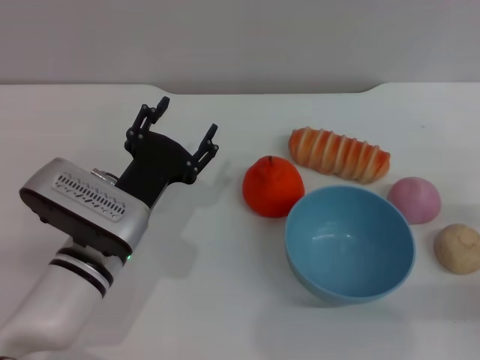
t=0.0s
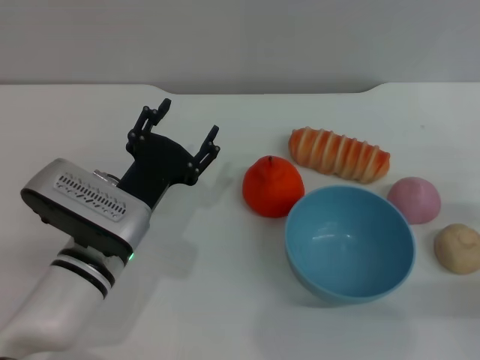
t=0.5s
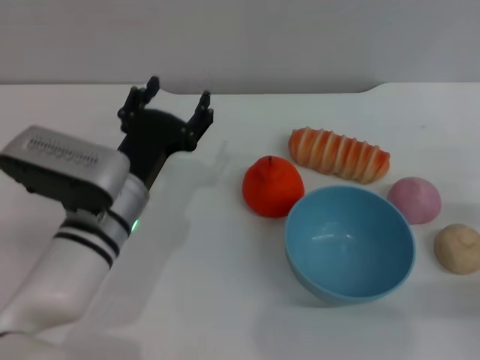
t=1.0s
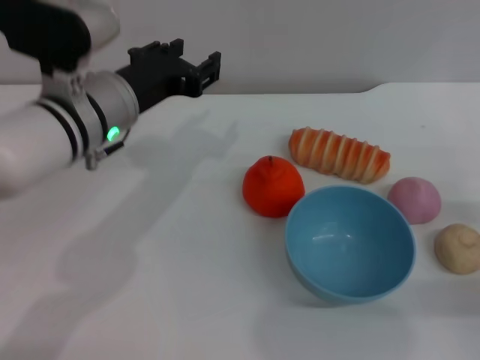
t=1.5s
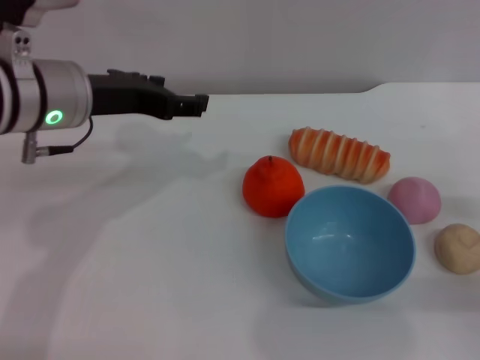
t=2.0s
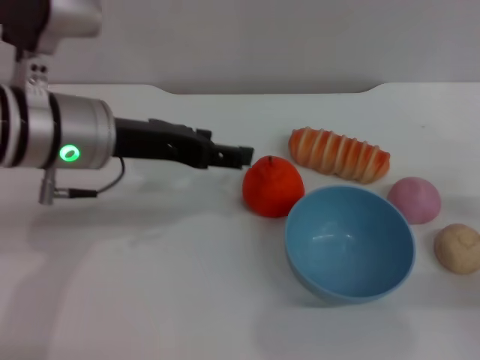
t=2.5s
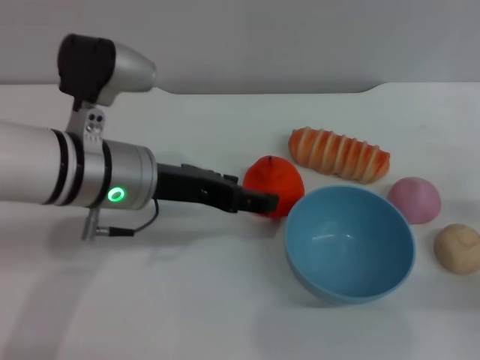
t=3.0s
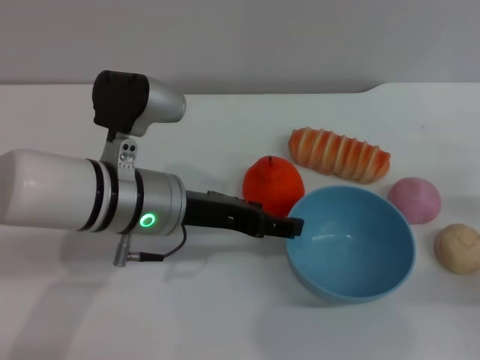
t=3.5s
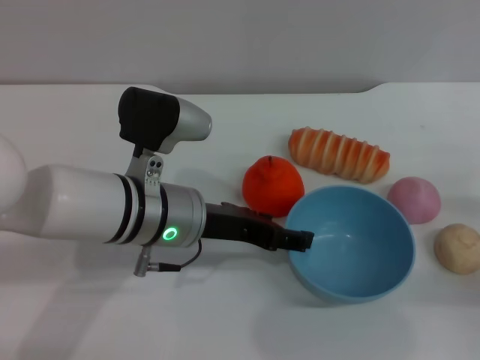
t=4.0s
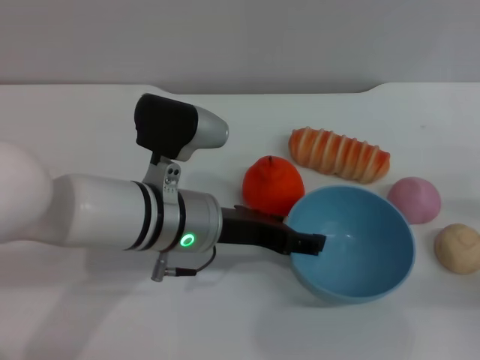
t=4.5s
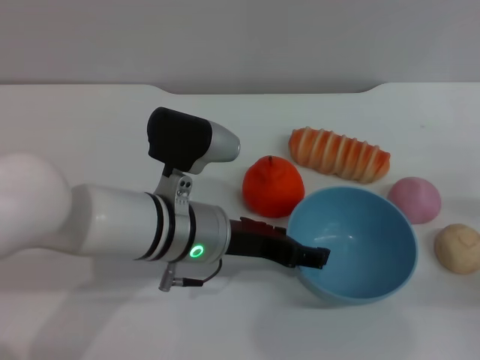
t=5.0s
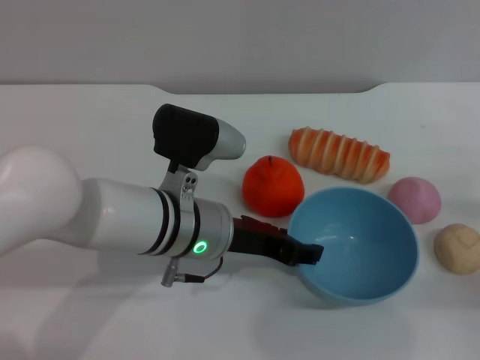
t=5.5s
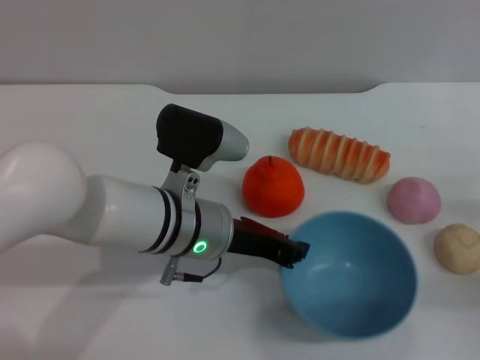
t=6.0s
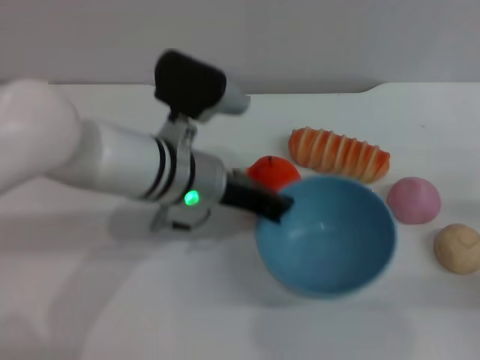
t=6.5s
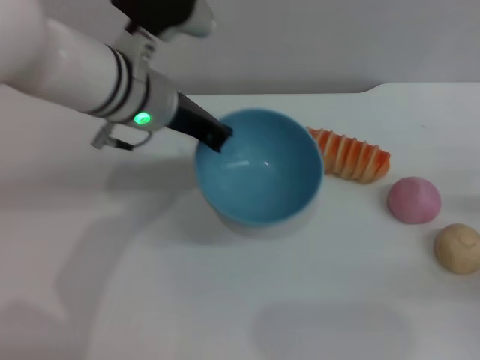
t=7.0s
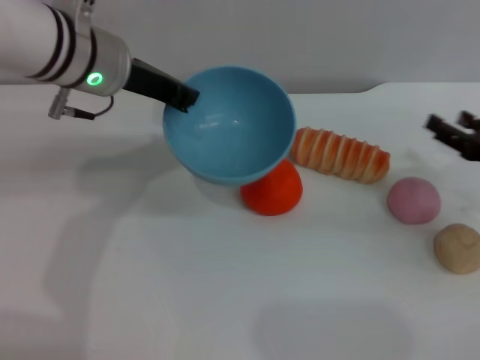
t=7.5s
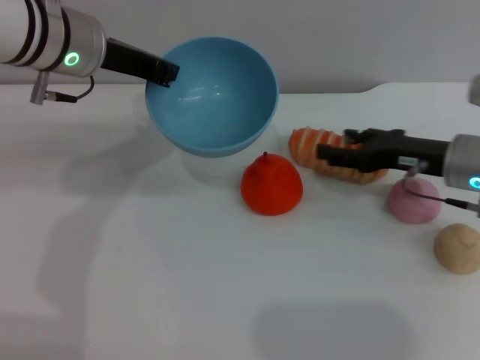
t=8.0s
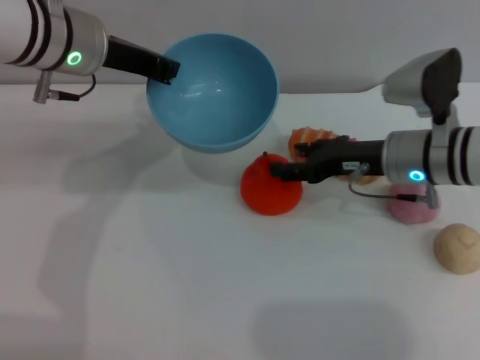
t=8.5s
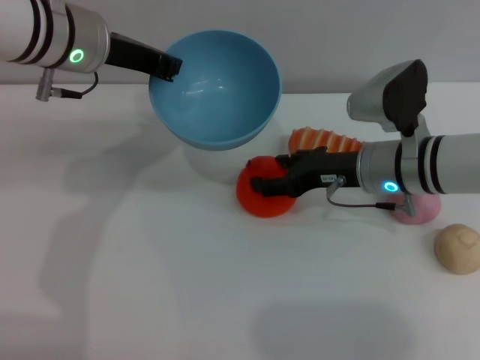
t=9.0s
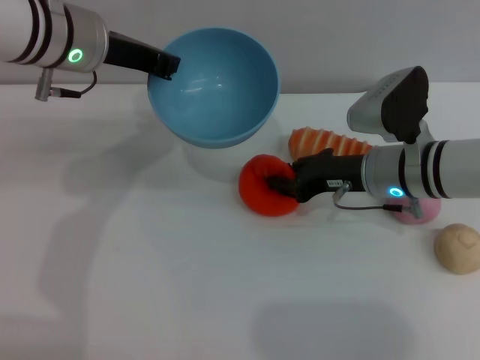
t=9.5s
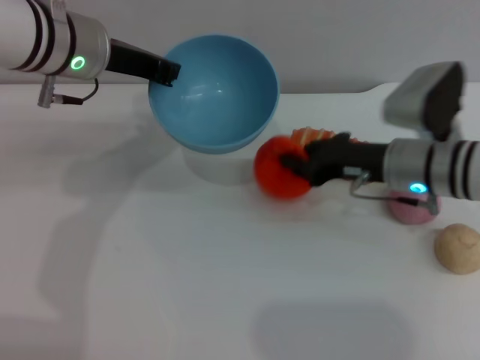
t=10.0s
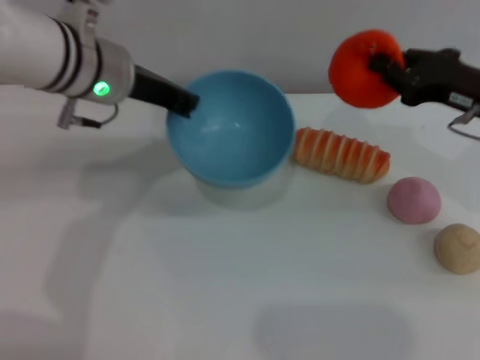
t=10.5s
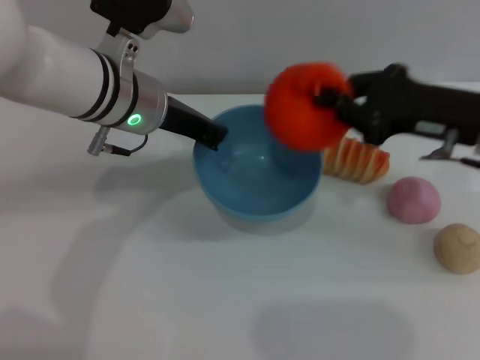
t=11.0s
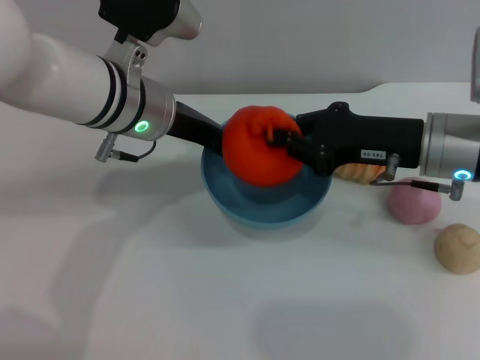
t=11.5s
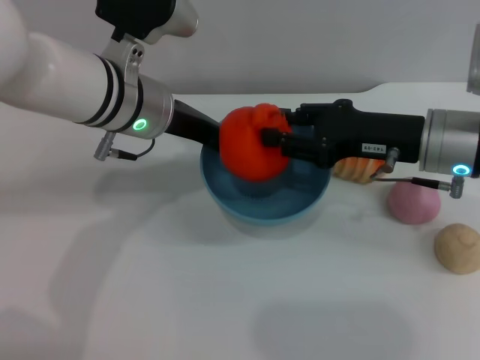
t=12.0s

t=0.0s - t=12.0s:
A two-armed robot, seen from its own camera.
Task of the whole recording: put the orange into the blue bowl and pour it out repeatedly.
Step, t=0.0s - t=6.5s: Pick up the bowl with the left gripper.
Step, t=7.0s - t=10.0s: Pick up the orange with the right gripper.
t=0.0s - t=2.0s: The left gripper heads upward and forward, covering about 15 cm.
t=2.0s - t=4.0s: The left gripper travels downward and to the right by roughly 10 cm.
t=4.0s - t=6.0s: The left gripper closes.
t=6.0s - t=8.0s: The right gripper shifts approximately 15 cm forward, to the left and upward, while the left gripper shifts roughly 20 cm upward, forward and to the left, and closes.
t=8.0s - t=10.0s: The right gripper travels to the left by roughly 5 cm, and closes.
t=10.0s - t=12.0s: The right gripper moves upward, approximately 5 cm, and travels to the right and back again, approximately 10 cm each way. The left gripper heads to the right, covering some 5 cm.

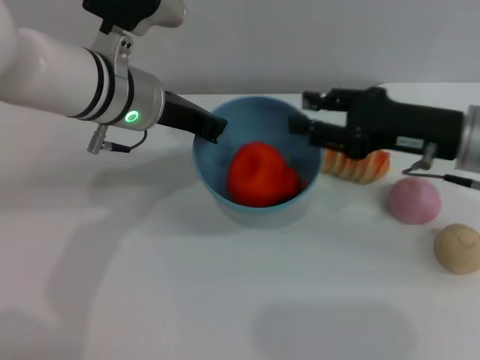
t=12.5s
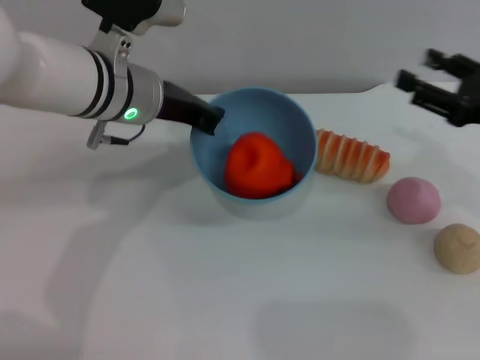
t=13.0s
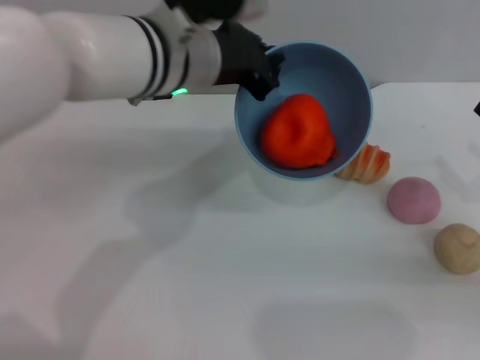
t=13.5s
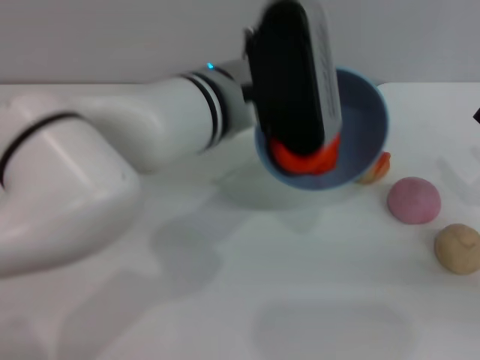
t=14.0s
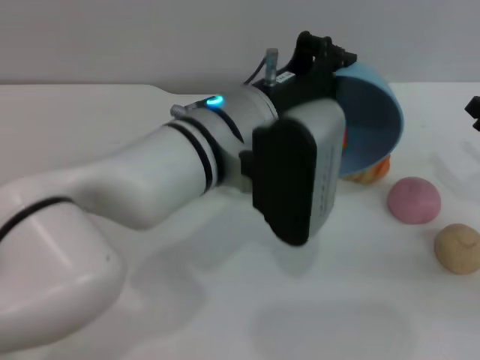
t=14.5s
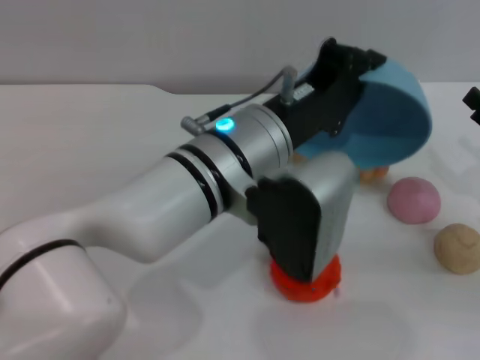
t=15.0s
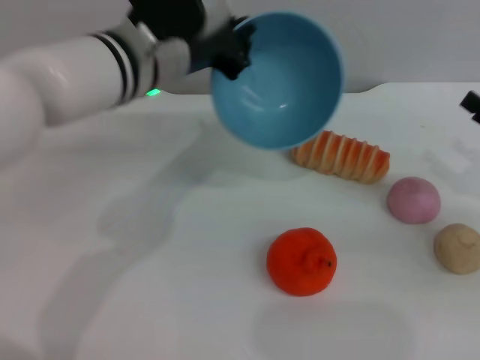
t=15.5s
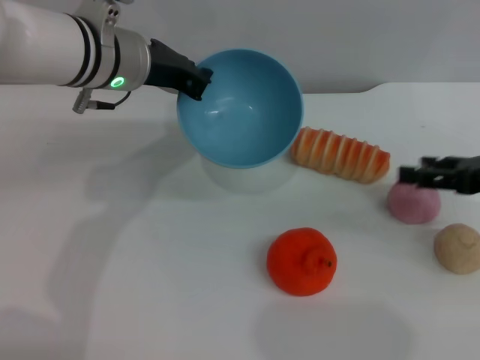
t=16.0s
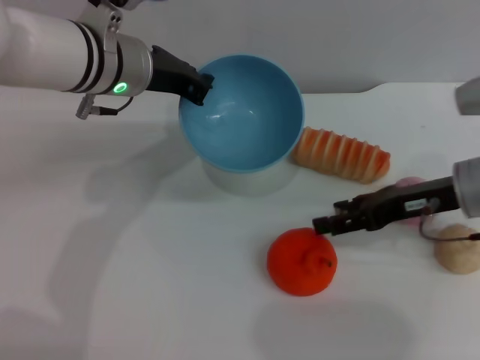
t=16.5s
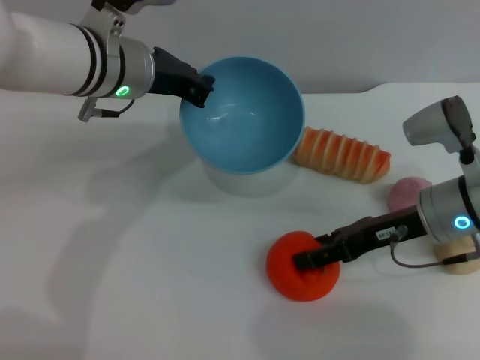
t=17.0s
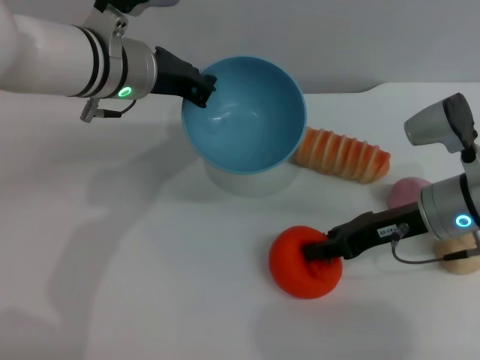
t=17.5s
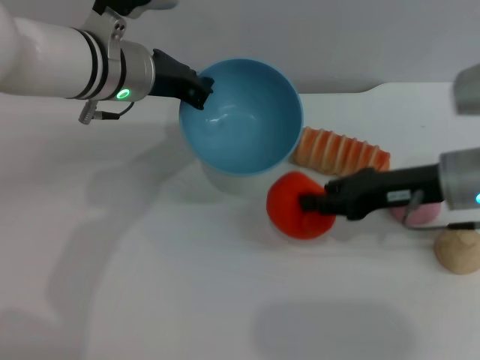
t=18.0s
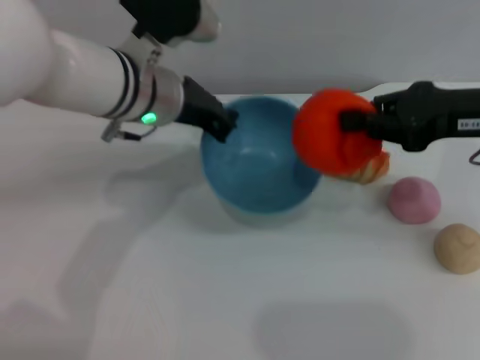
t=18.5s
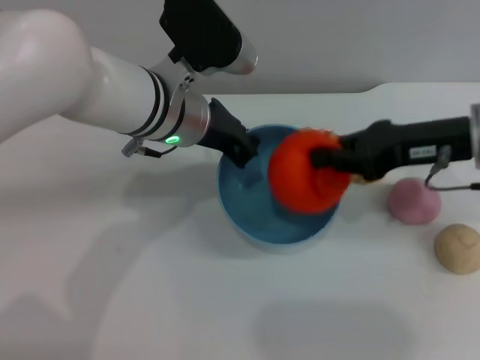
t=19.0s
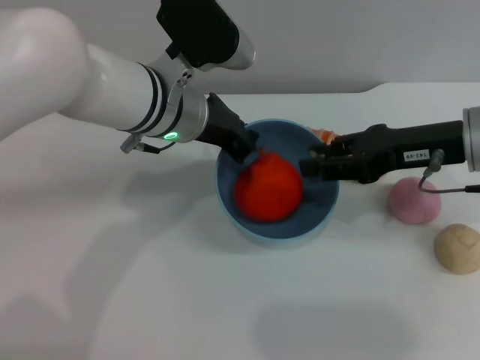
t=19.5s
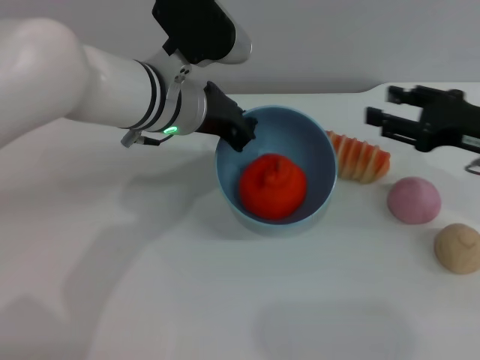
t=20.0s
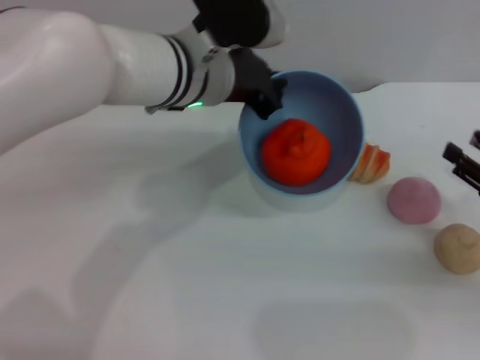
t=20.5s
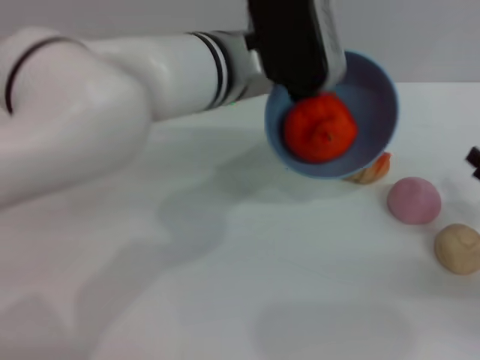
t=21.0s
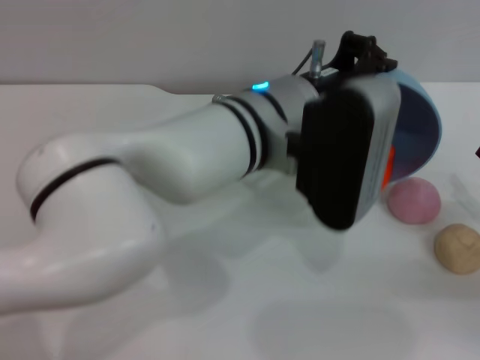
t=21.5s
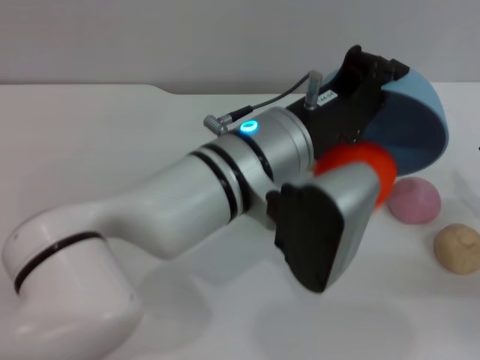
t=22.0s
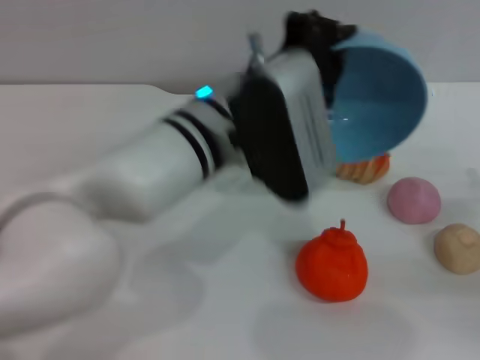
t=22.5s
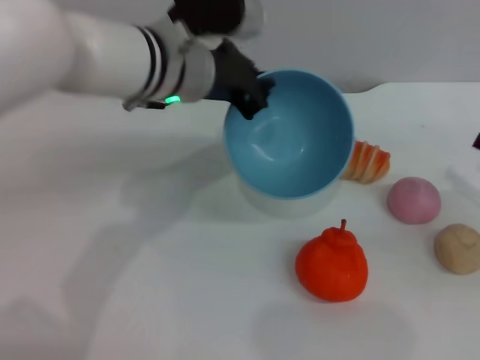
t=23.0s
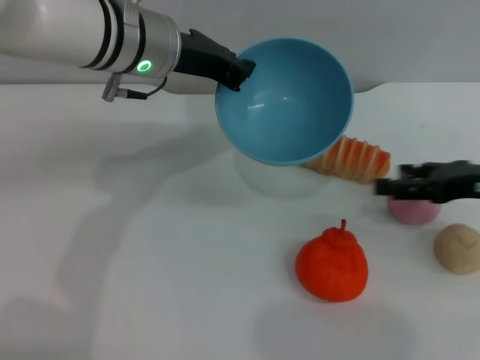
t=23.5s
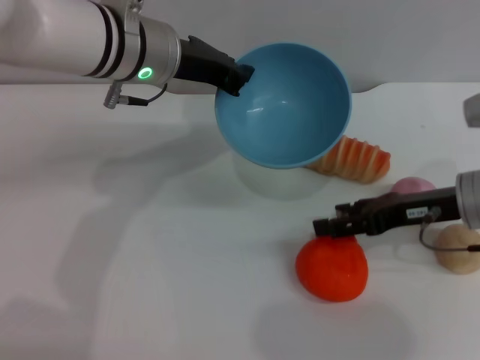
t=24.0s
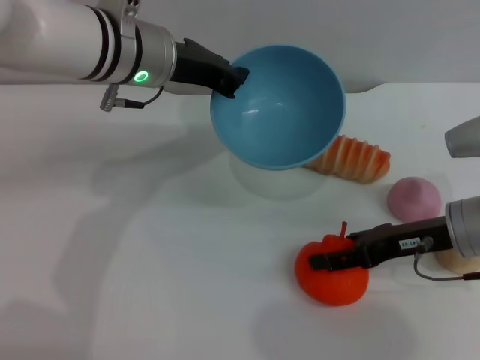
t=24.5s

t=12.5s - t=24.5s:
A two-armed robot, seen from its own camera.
Task of the whole recording: put the orange into the blue bowl and pour it out repeatedly.
Step, t=12.5s - t=15.0s: Pour the orange out of the bowl.
Step, t=15.5s - t=18.0s: Pick up the orange with the right gripper.
Step, t=18.5s - t=19.5s: Place the orange into the bowl.
Step, t=20.0s - t=22.0s: Pour the orange out of the bowl.
t=12.5s - t=14.5s: The left gripper shifts some 10 cm to the right and backward; the right gripper travels to the right, downward and backward by some 15 cm, and opens.
t=14.5s - t=16.5s: The two grippers go about 15 cm to the left and forward.
t=16.5s - t=18.5s: The right gripper shifts about 10 cm upward, and closes its fingers.
t=18.5s - t=20.5s: The right gripper goes some 20 cm downward, to the right and backward, and opens.
t=20.5s - t=22.5s: The left gripper moves backward, about 10 cm.
t=22.5s - t=24.5s: The right gripper heads to the left and forward, covering some 15 cm. The left gripper shifts about 15 cm forward and to the left.

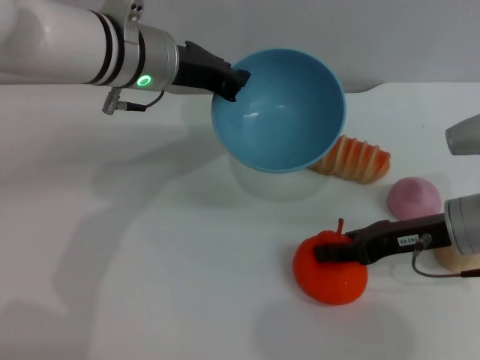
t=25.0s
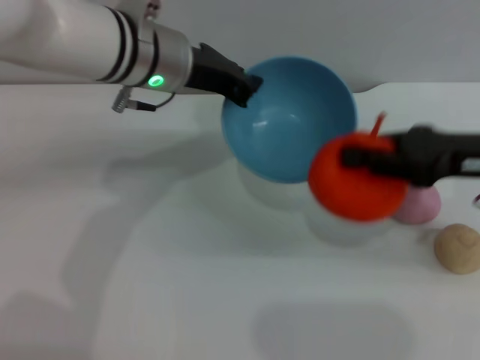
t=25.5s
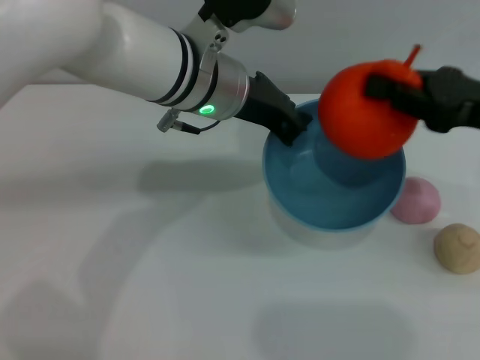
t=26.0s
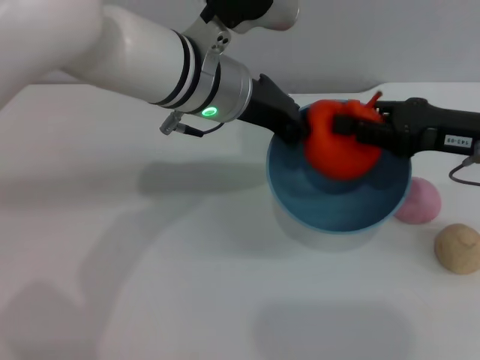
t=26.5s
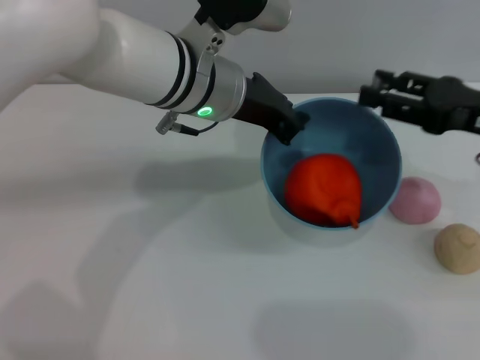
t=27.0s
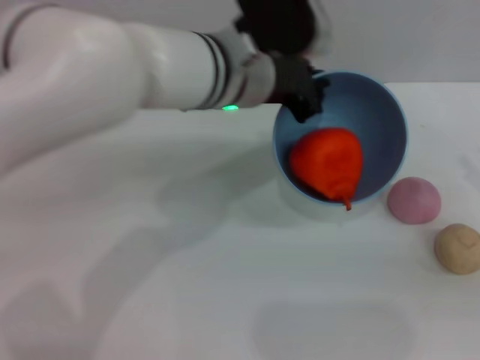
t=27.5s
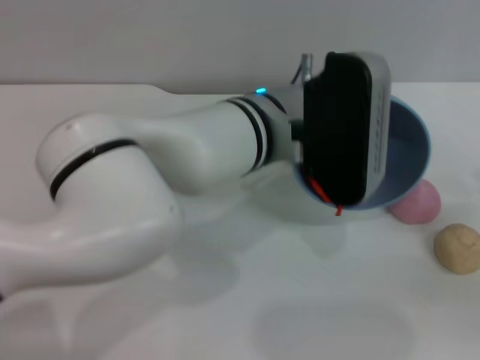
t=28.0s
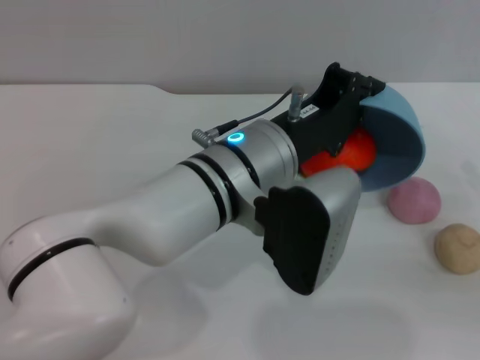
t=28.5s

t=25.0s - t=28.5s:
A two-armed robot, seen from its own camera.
Task of the whole recording: put the orange into the blue bowl and pour it out repeatedly.
Step, t=26.0s - t=27.0s: Place the orange into the bowl.
t=25.0s - t=27.0s: The left gripper heads to the right, covering roughly 5 cm; the right gripper shifts approximately 10 cm upward, and closes, then reopens.
t=27.0s - t=28.5s: The left gripper travels backward by roughly 10 cm, while the right gripper is displaced to the right, downward and backward by roughly 15 cm.
